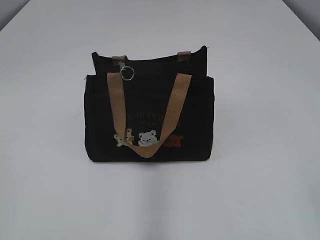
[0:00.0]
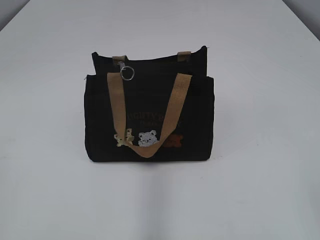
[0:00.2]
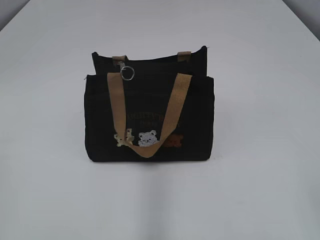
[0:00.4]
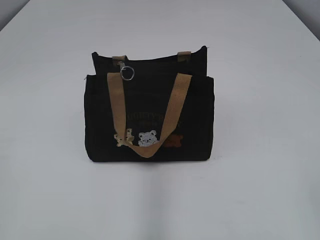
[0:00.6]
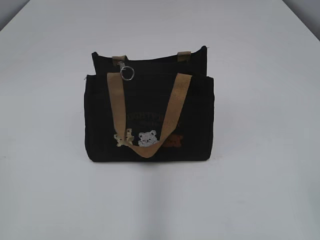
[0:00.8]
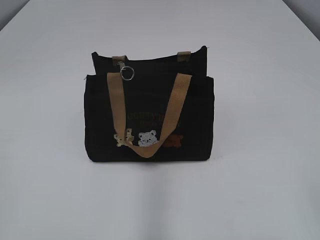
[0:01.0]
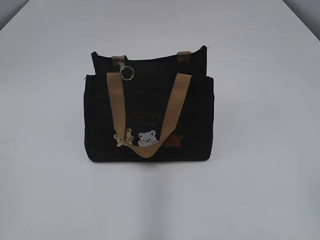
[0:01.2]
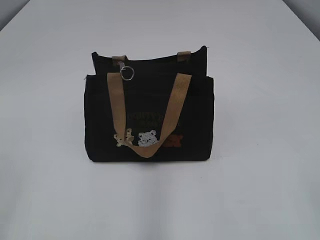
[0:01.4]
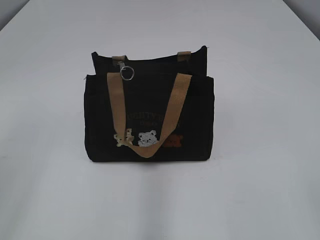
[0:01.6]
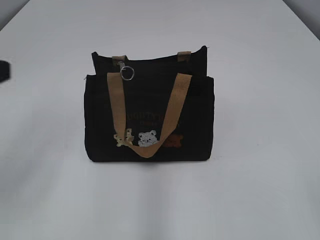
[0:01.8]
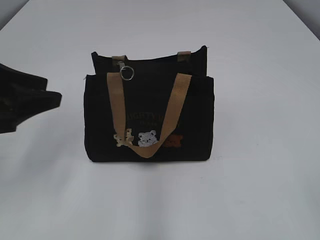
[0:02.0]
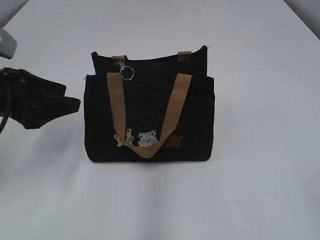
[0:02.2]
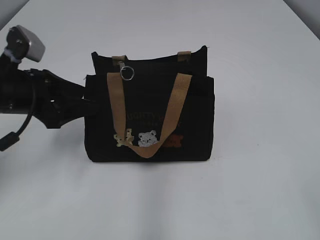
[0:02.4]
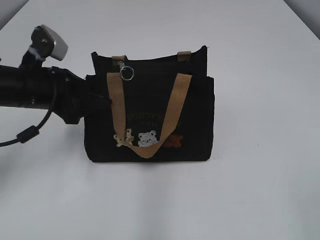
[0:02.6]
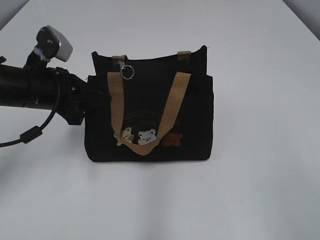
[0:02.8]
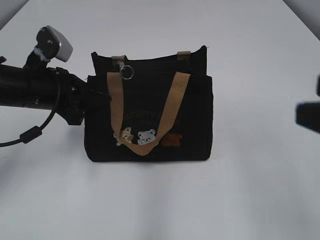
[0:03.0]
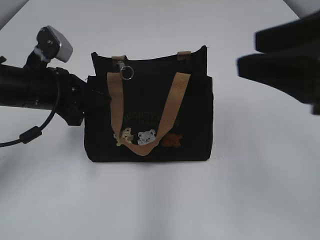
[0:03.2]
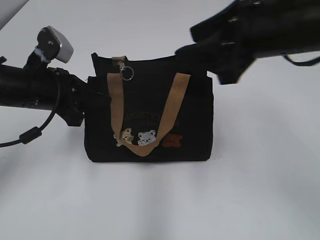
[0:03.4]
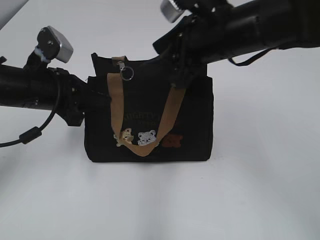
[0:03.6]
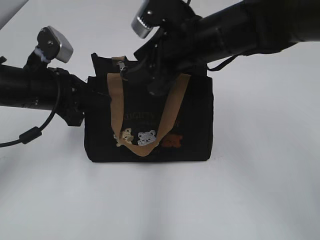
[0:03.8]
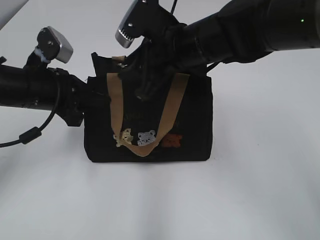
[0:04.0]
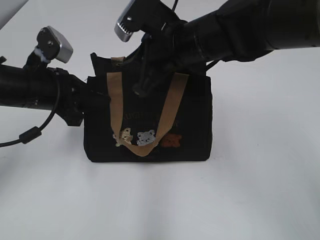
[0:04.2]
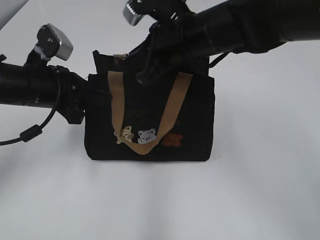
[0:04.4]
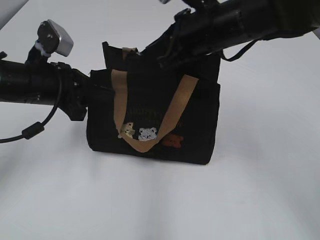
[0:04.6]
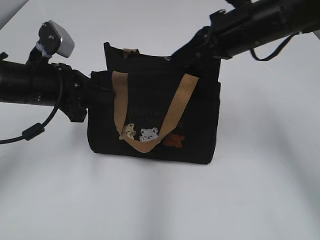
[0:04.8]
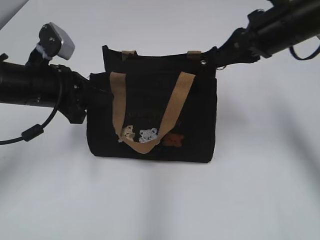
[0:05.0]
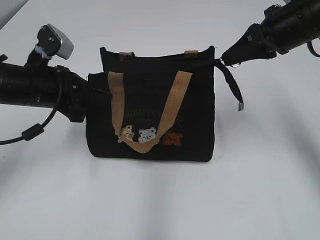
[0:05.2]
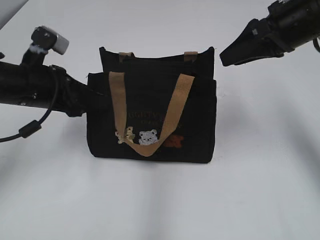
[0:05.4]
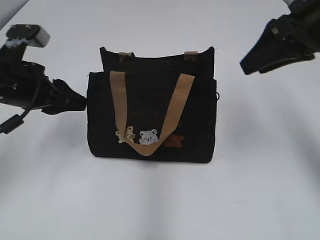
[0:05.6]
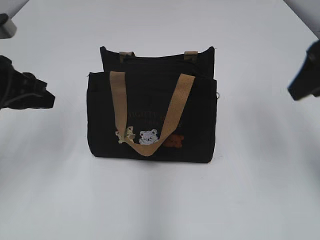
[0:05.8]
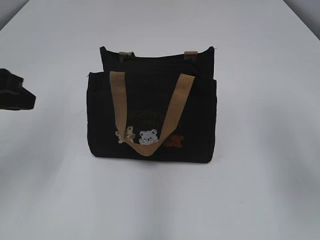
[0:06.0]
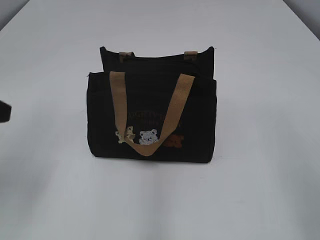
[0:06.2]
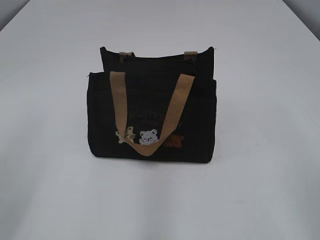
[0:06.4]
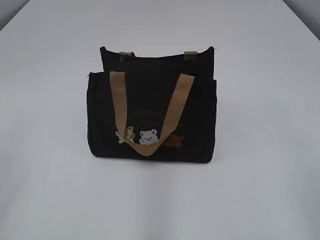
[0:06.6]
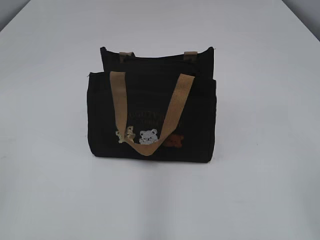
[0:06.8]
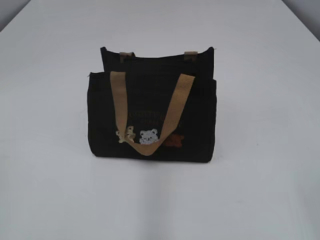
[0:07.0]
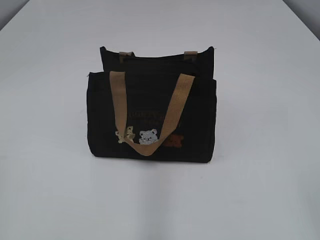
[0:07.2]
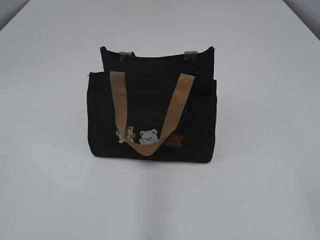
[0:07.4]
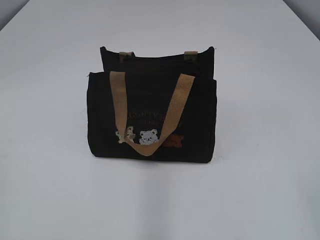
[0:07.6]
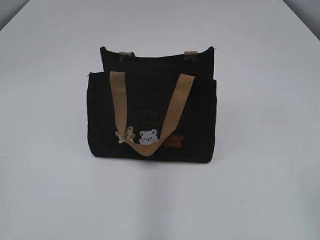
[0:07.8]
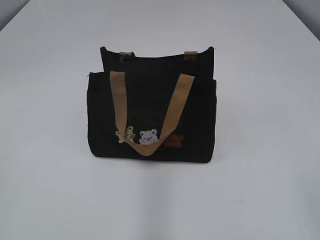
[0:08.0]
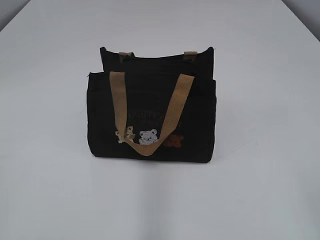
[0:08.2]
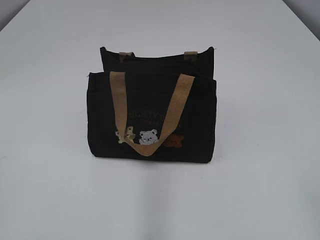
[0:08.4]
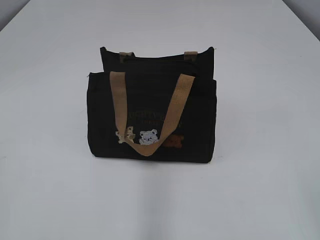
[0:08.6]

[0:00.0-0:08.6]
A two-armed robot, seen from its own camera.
Step, 0:00.0 to 0:05.2: Pull open the zipper with your right hand.
0:01.4 to 0:02.8: The left gripper is displaced forward and downward by some 30 cm, and closes up.
0:02.8 to 0:04.4: The right gripper shifts about 40 cm forward and to the left, and closes up.
0:04.4 to 0:05.8: The right gripper heads to the right and backward, covering roughly 20 cm, and opens its fingers, while the left gripper goes some 5 cm upward.
0:05.8 to 0:07.2: The grippers both shift backward by about 25 cm.
